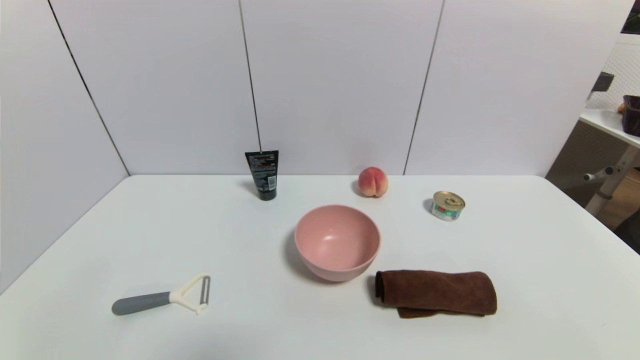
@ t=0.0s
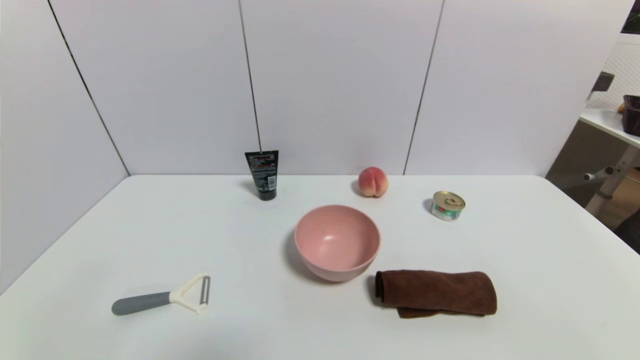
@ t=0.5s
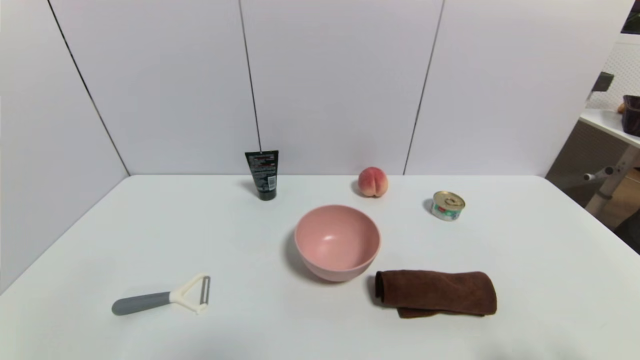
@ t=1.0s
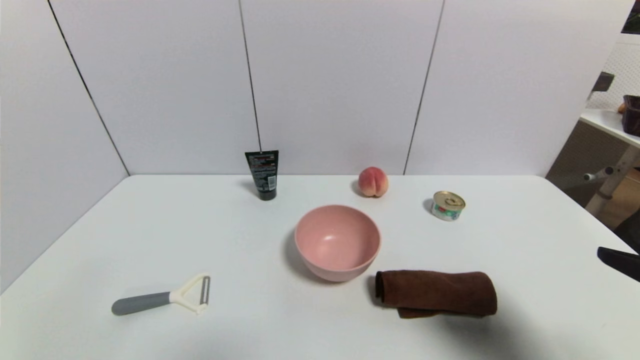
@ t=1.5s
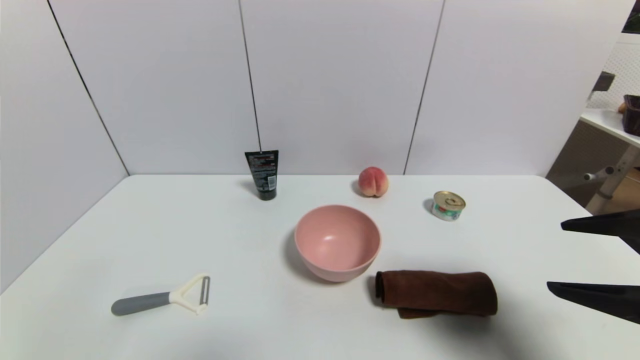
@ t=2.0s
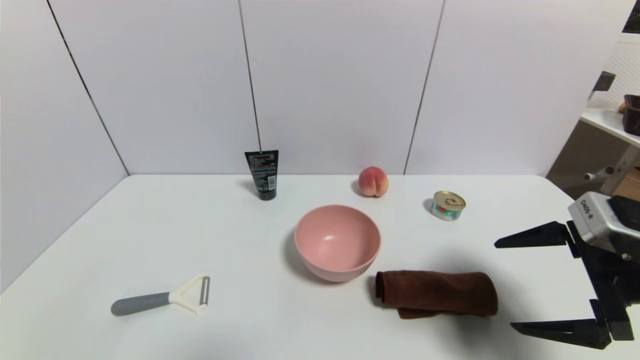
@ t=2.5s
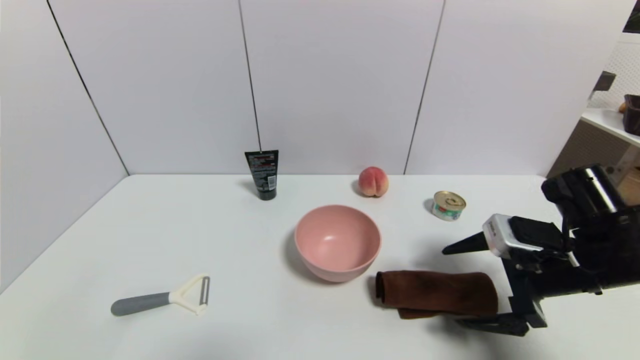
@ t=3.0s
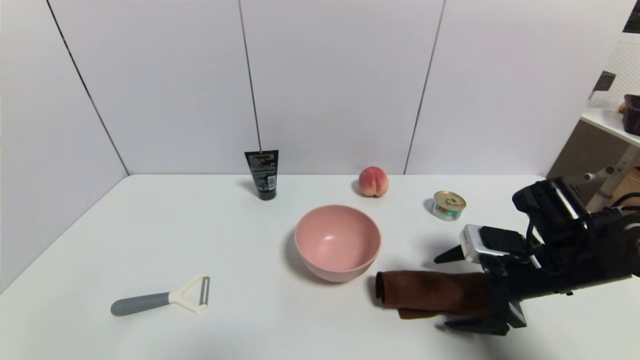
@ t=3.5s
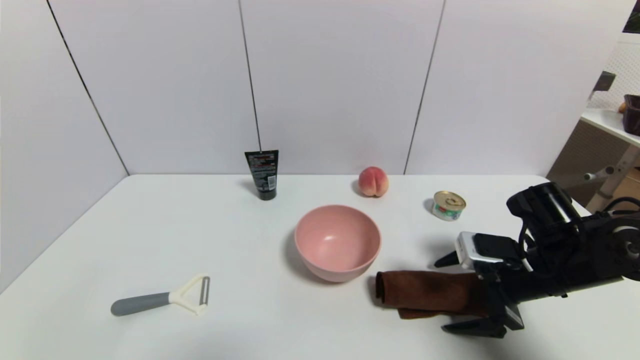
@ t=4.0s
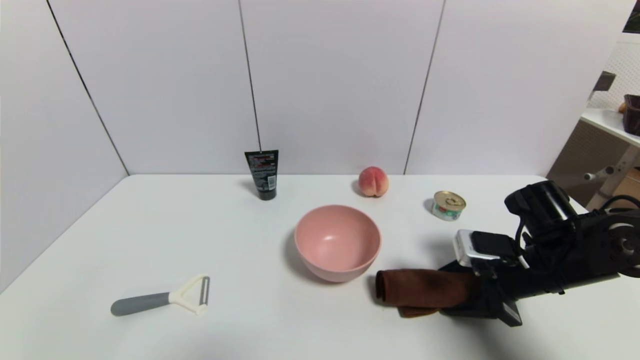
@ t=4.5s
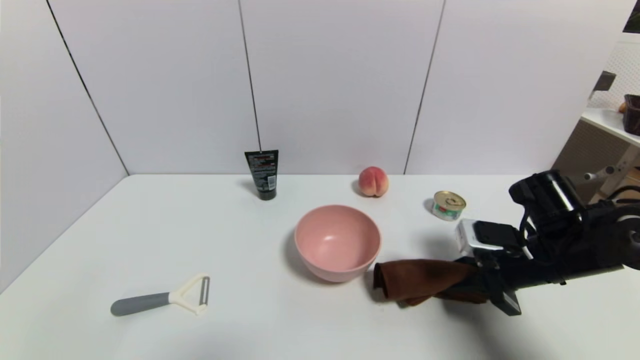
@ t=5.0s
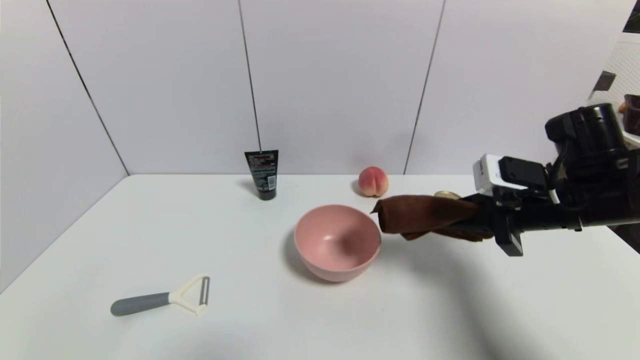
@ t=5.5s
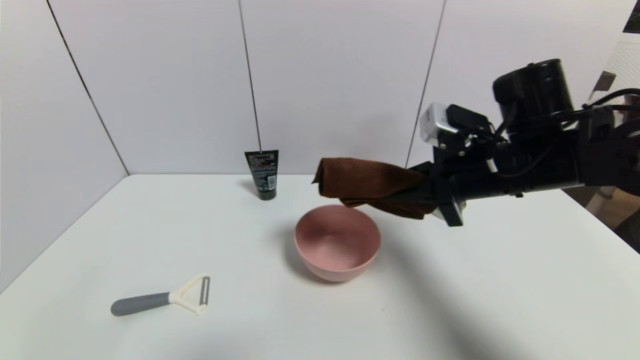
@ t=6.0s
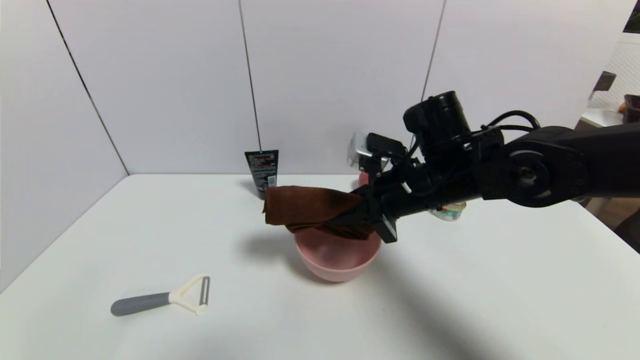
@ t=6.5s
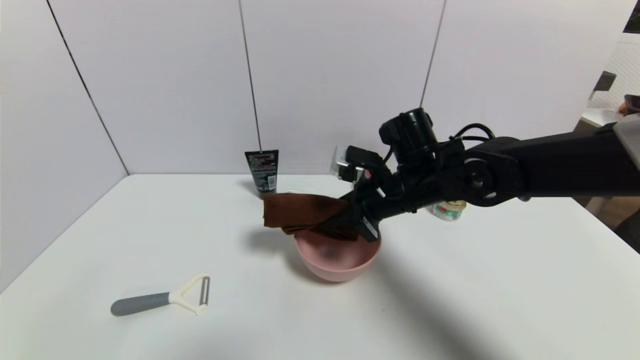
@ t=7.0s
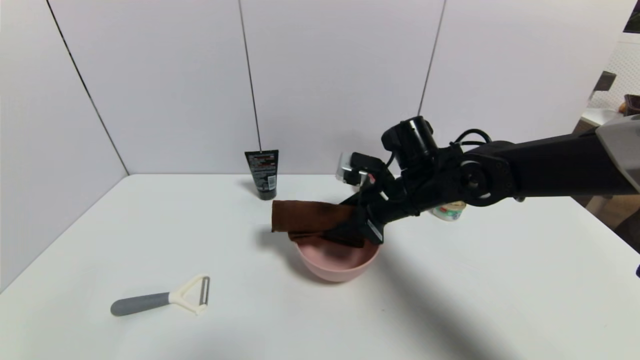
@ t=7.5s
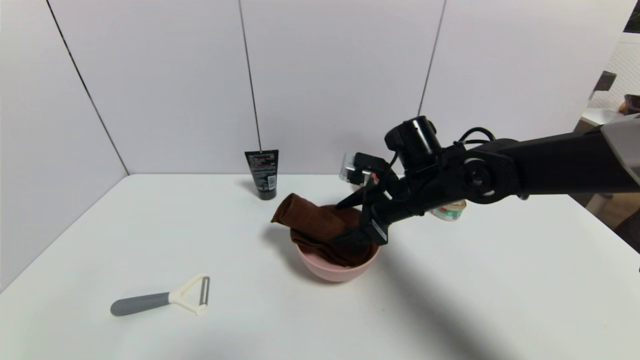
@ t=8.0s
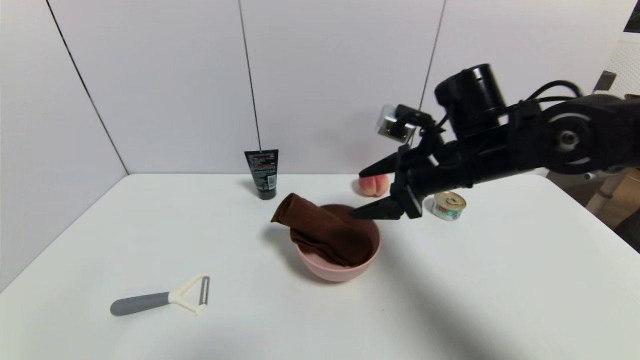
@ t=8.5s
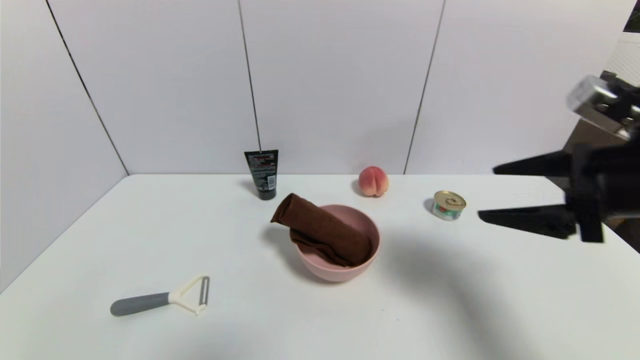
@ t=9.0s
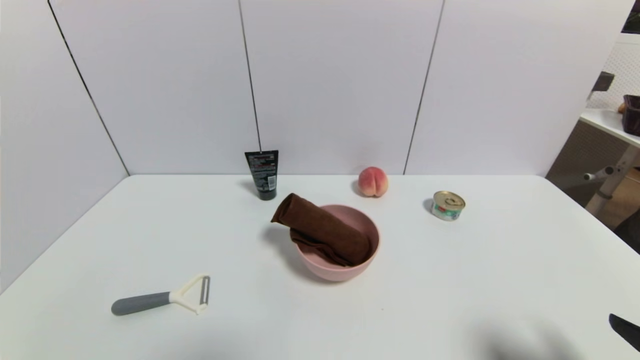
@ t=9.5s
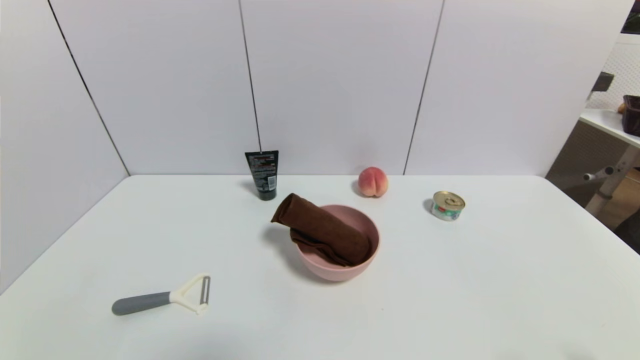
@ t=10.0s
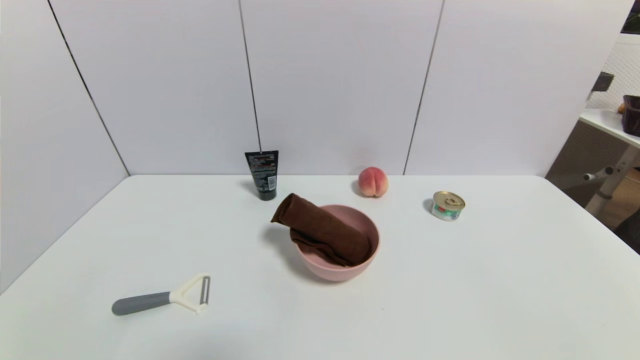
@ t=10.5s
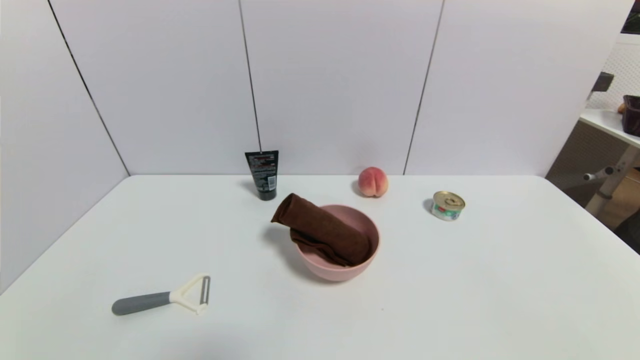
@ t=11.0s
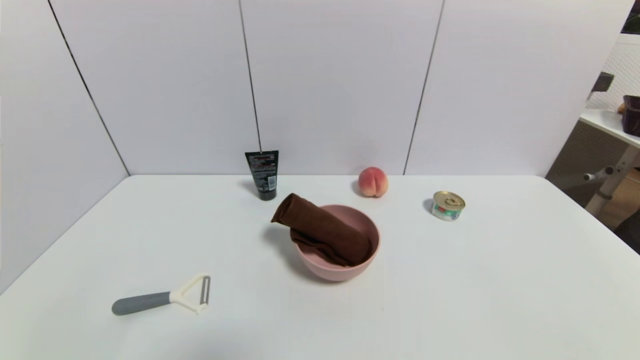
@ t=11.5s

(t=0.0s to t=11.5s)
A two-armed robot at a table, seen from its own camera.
Task of the whole recording: use a gripper to pick the target object and place on the pink bowl.
Step, t=0.0s - t=4.5s: Grasp the brown towel with the right gripper.
Step, t=5.0s - t=8.0s: Place the brown towel on the pink bowl with the right gripper.
t=0.0s - t=2.0s: The right gripper shifts some 25 cm upward and forward.
t=2.0s - t=4.0s: The right gripper heads downward and forward, covering about 20 cm.
t=4.0s - t=6.0s: The right gripper heads upward and to the left, covering roughly 15 cm, and closes its fingers.
t=6.0s - t=7.5s: The right gripper goes approximately 10 cm downward, to the left and forward, and opens.
t=7.5s - t=9.5s: The right gripper travels backward and to the right by approximately 35 cm, and opens its fingers.
t=9.5s - t=11.5s: The right gripper travels downward and backward by some 10 cm.

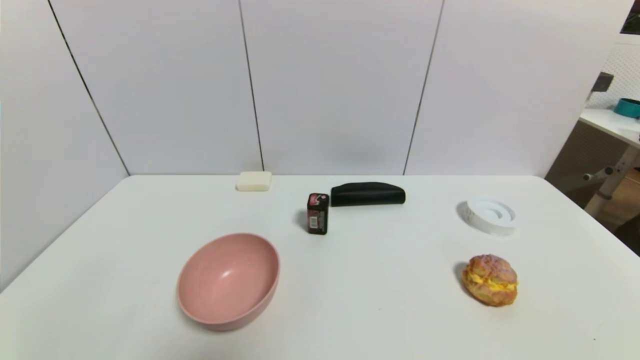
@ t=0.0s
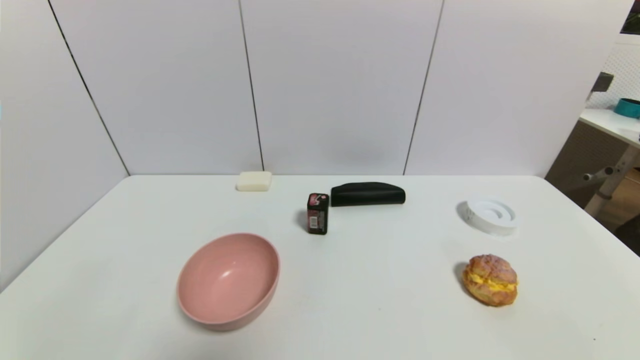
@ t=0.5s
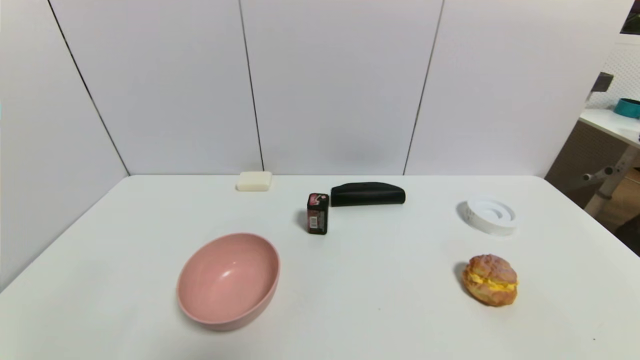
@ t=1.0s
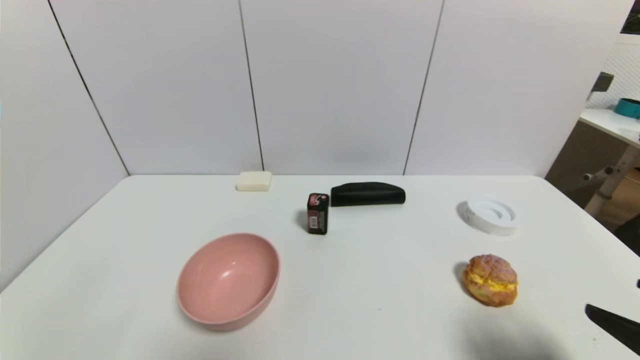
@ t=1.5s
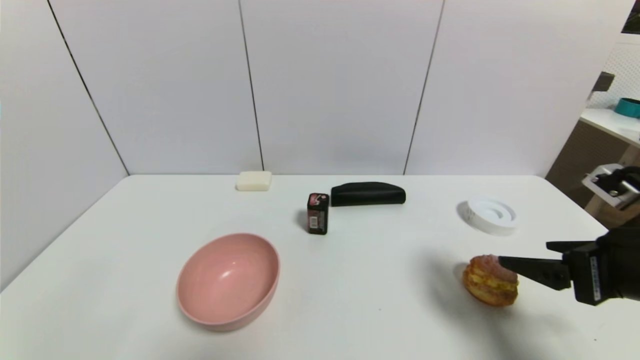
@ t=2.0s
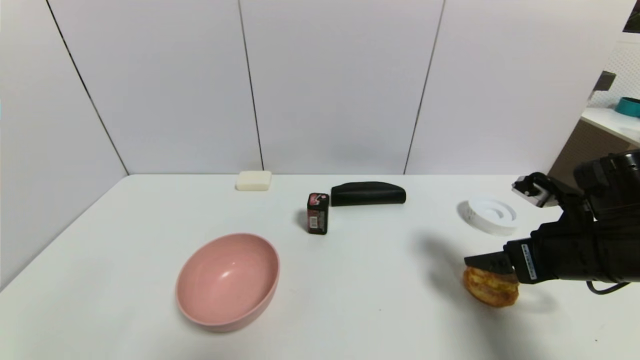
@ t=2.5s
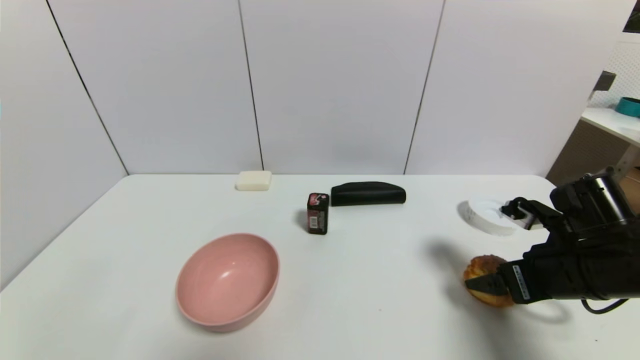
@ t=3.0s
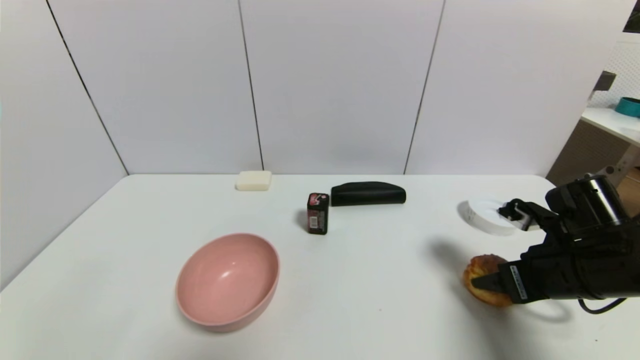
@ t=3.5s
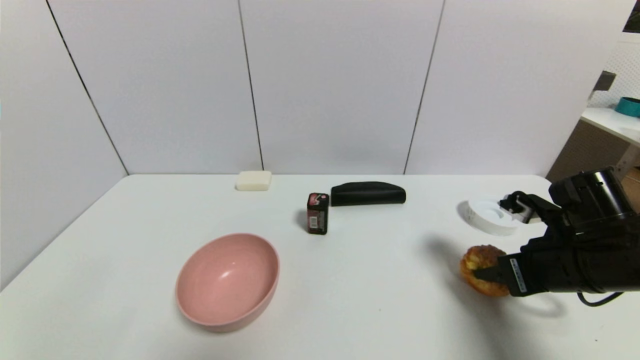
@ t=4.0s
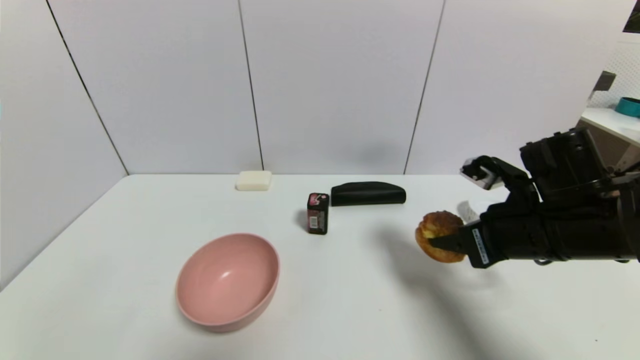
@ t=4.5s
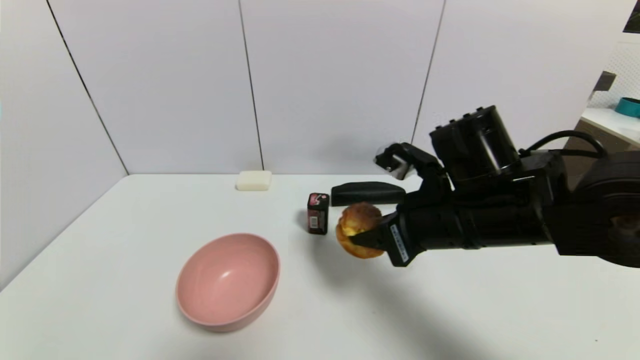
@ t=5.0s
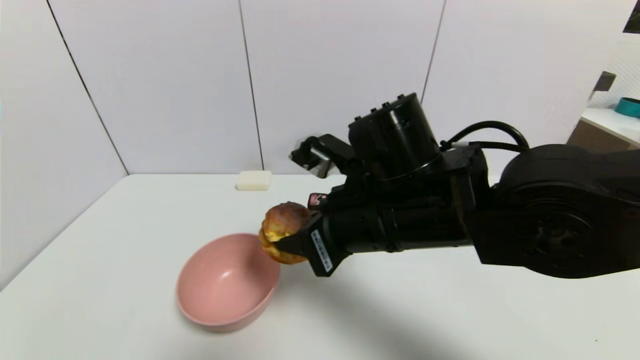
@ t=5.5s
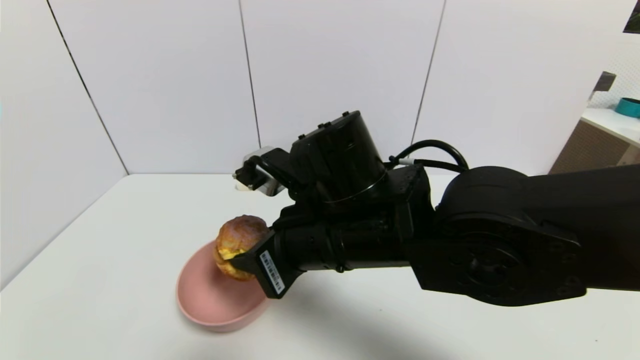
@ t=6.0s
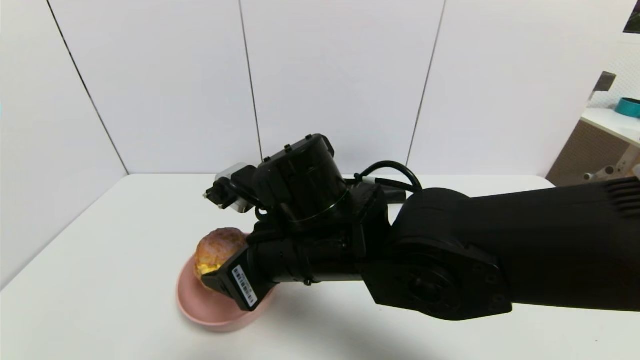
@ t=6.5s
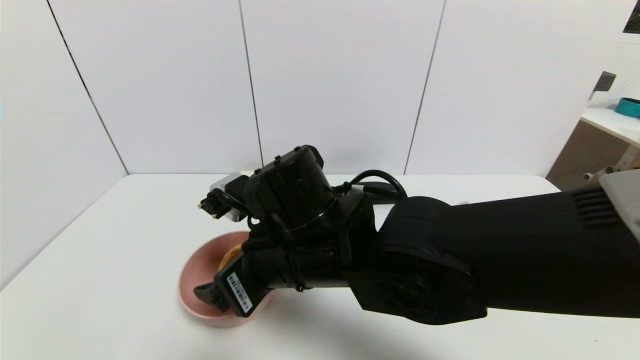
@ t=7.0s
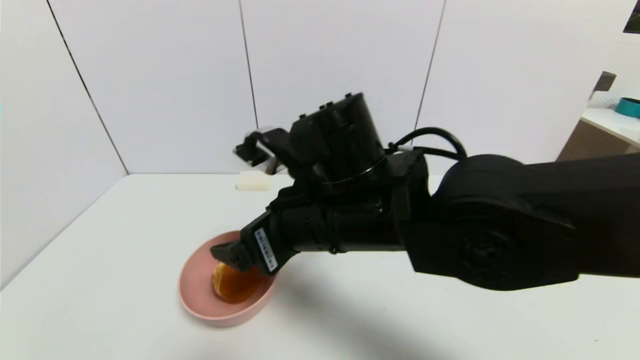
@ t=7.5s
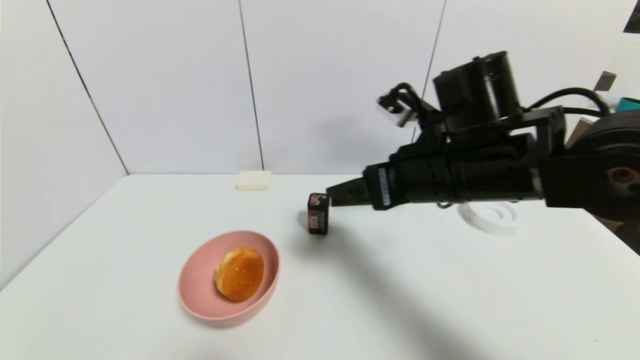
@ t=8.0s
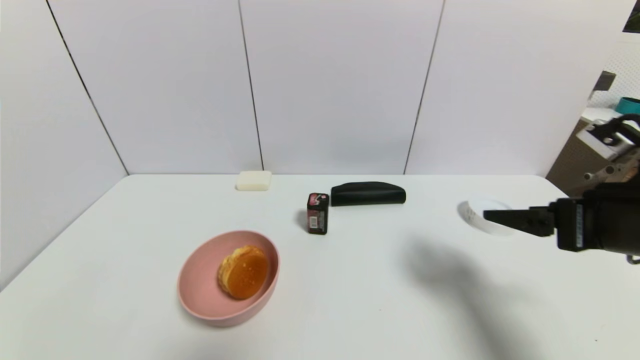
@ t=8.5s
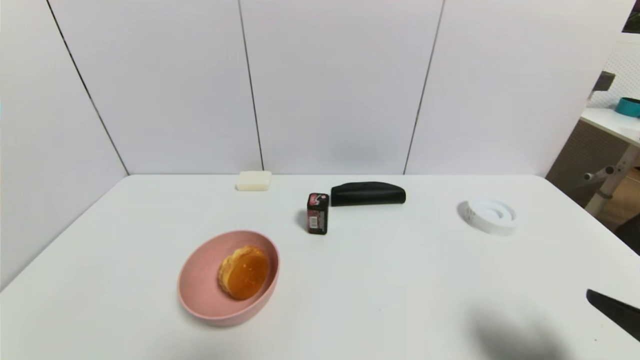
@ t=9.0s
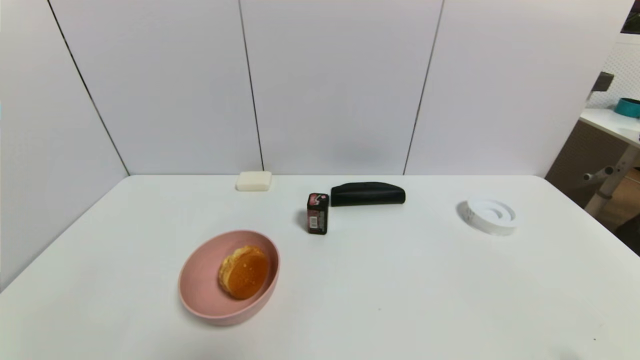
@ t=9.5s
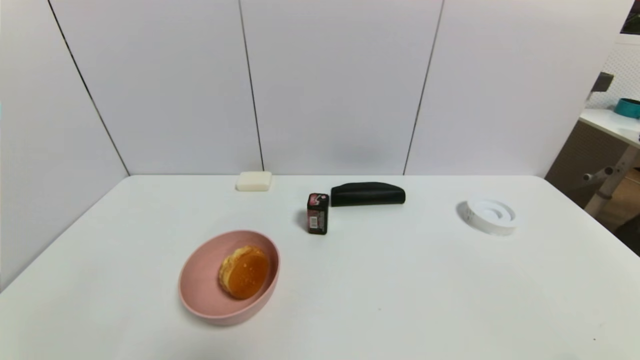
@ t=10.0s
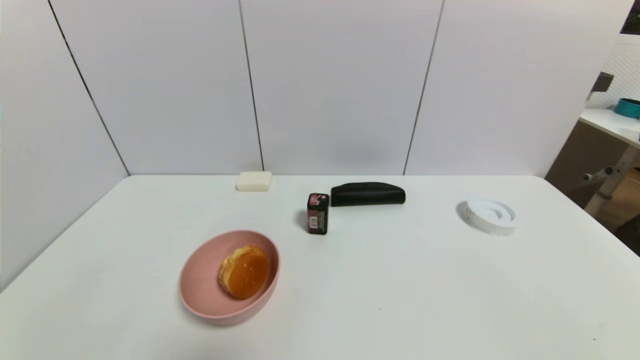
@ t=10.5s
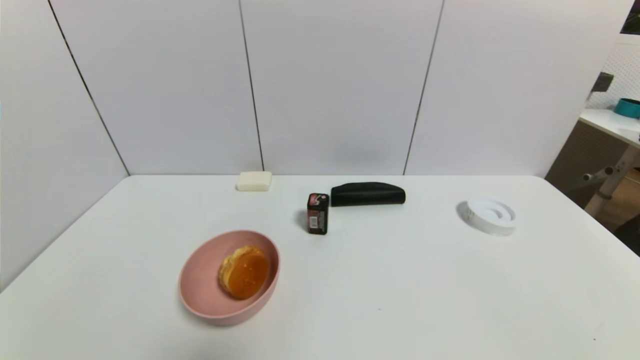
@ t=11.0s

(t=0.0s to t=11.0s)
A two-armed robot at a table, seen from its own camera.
Task of the whole recording: use a gripper to pick the target object and place on the pink bowl.
Step, t=0.0s - t=3.5s: Grasp the round bread with the right gripper.
Step, t=4.0s - t=7.0s: Place the round bread on the pink bowl with the right gripper.
t=0.0s - t=2.0s: The right gripper heads forward and upward, covering roughly 20 cm.
t=2.0s - t=3.5s: The right gripper goes roughly 10 cm forward and downward, and closes.
t=3.5s - t=5.5s: The right gripper shifts about 25 cm to the left, and closes its fingers.
t=5.5s - t=7.5s: The right gripper opens its fingers.
t=7.5s - t=9.0s: The right gripper goes about 35 cm to the right and backward.
t=9.0s - t=11.0s: The right gripper moves downward and backward, roughly 15 cm.